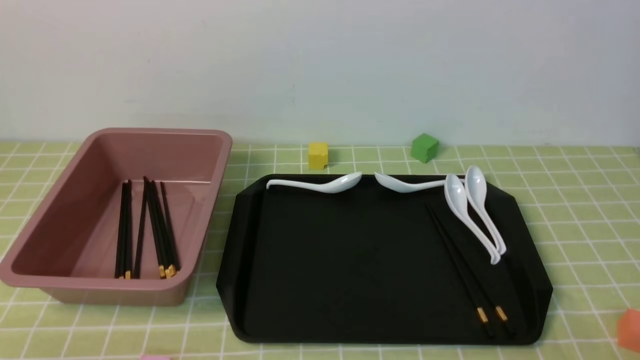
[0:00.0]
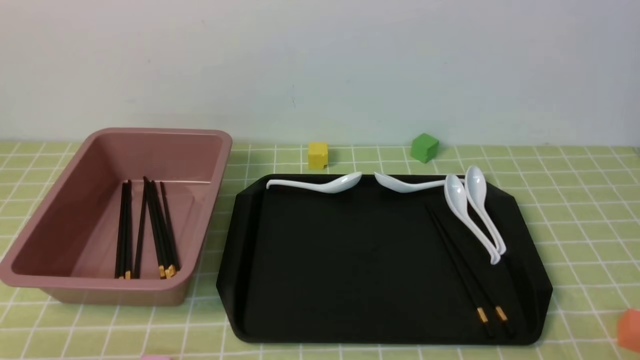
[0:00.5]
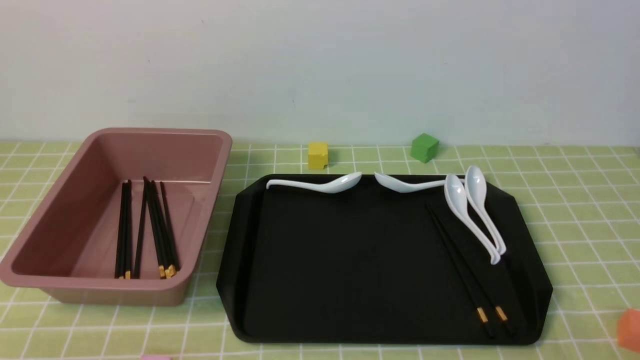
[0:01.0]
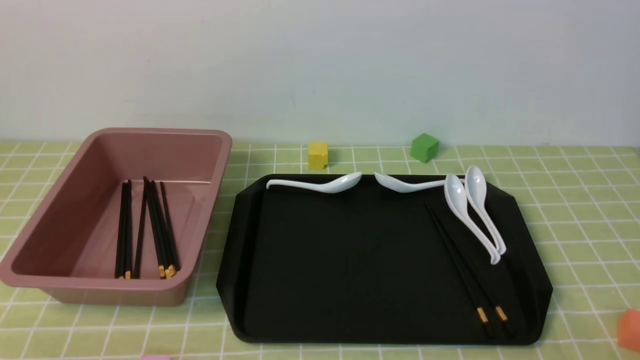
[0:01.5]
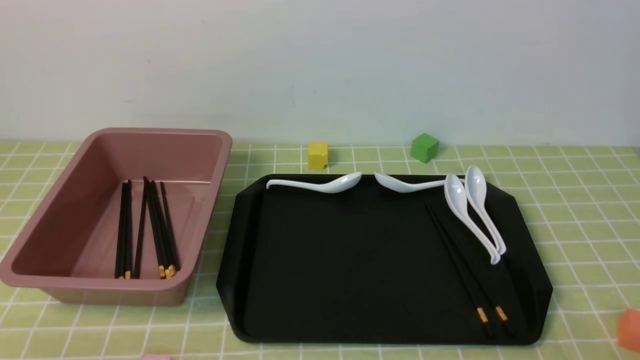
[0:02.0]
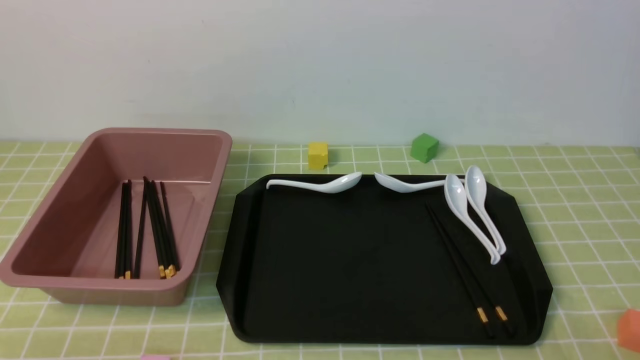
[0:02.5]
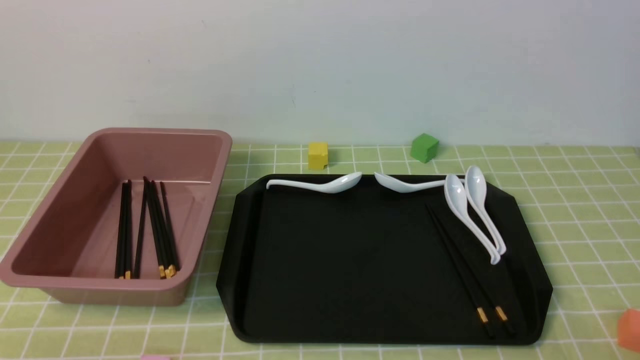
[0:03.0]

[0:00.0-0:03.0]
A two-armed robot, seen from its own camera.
0:00.0 to 0:03.0: Neither gripper changes place.

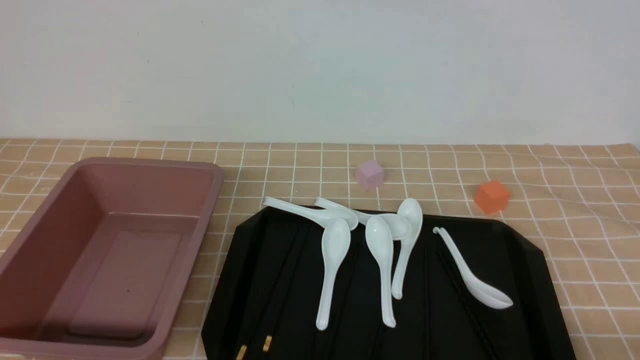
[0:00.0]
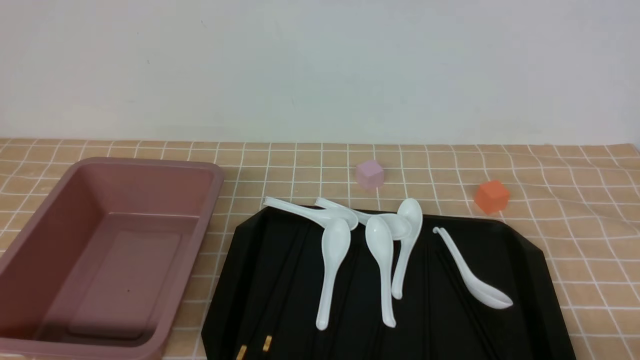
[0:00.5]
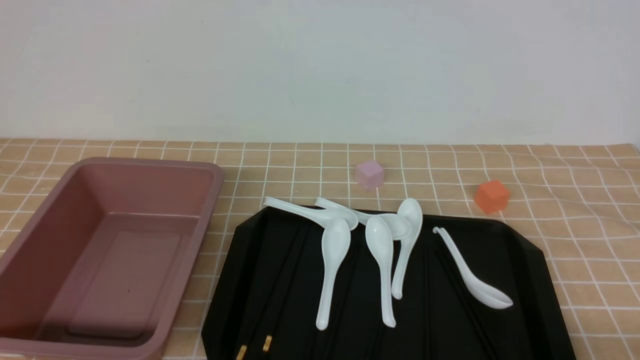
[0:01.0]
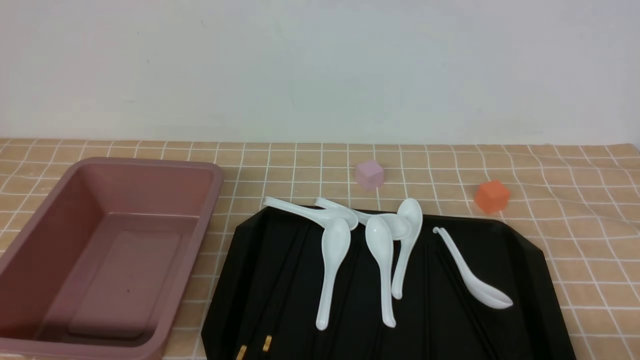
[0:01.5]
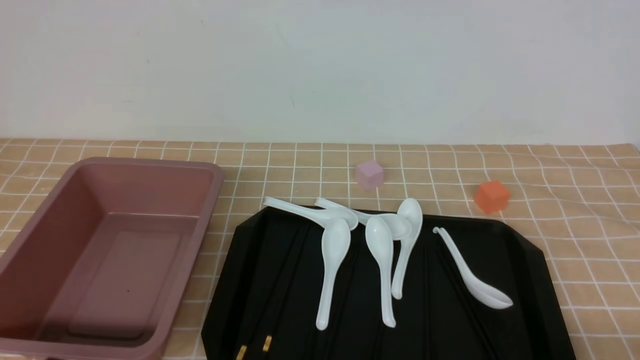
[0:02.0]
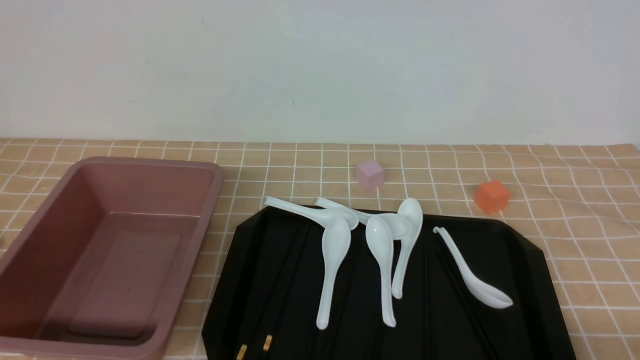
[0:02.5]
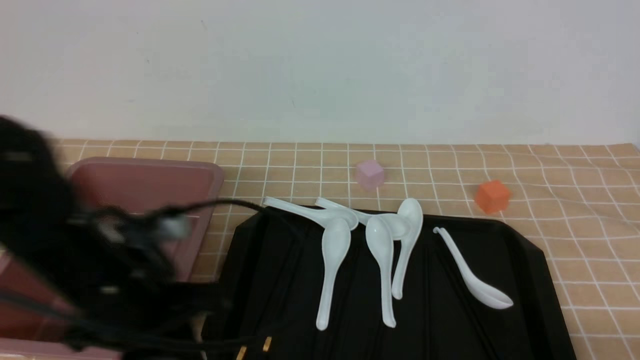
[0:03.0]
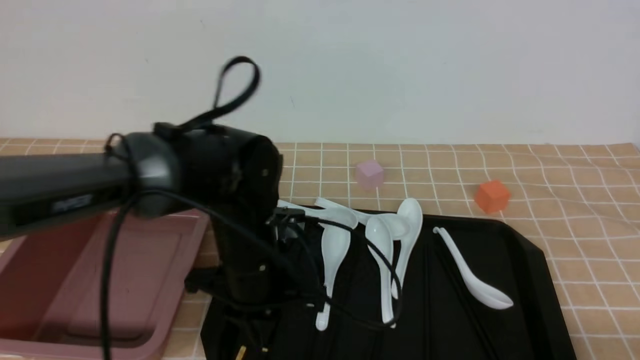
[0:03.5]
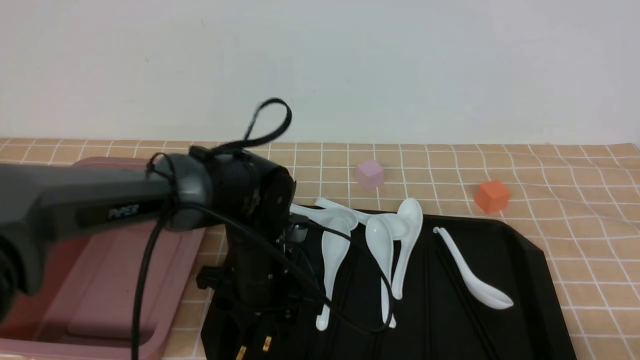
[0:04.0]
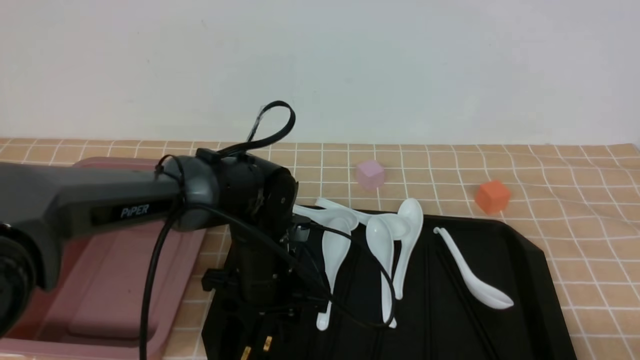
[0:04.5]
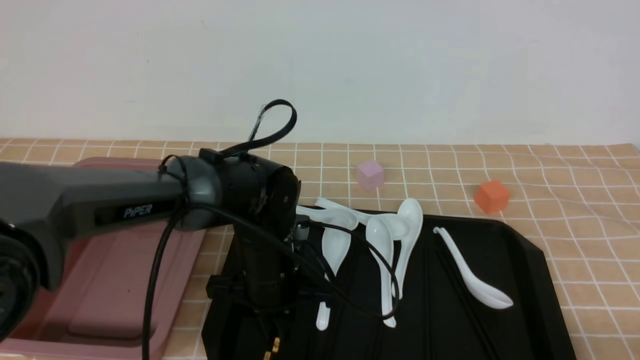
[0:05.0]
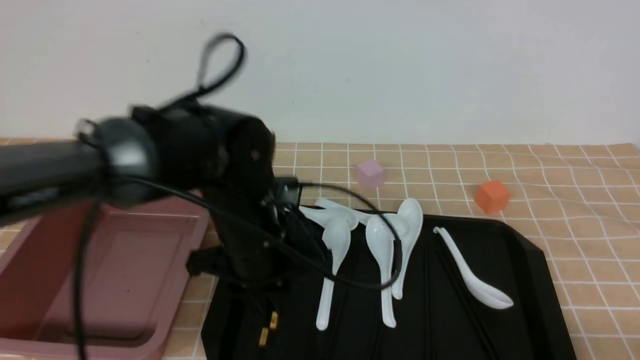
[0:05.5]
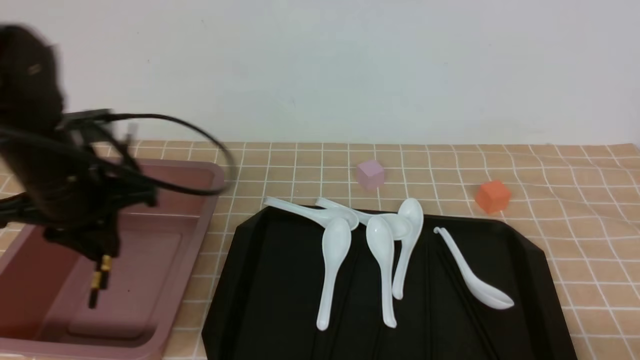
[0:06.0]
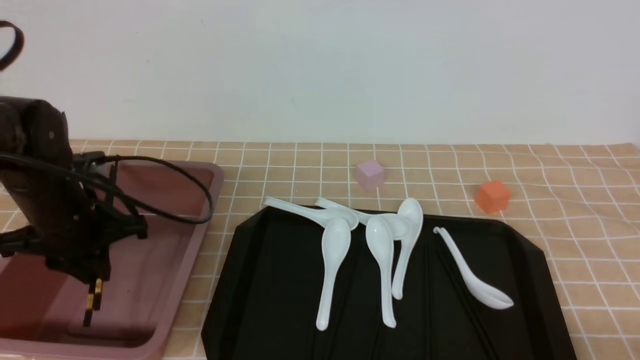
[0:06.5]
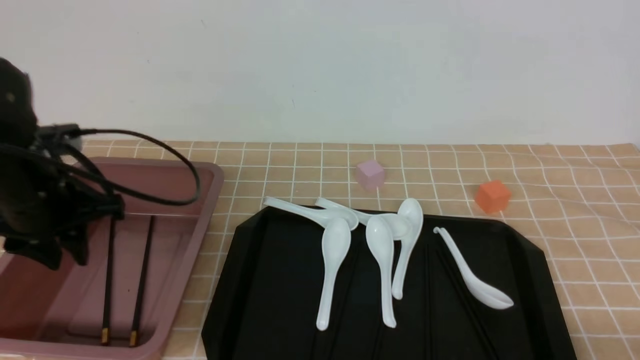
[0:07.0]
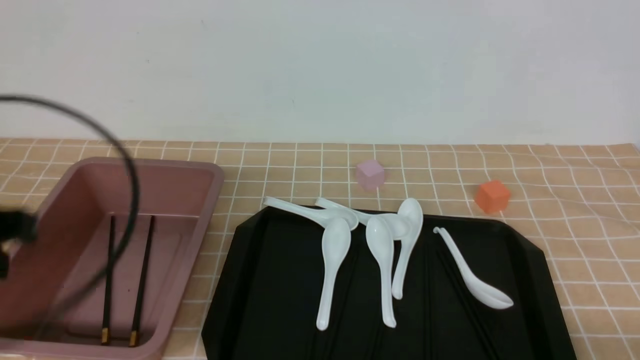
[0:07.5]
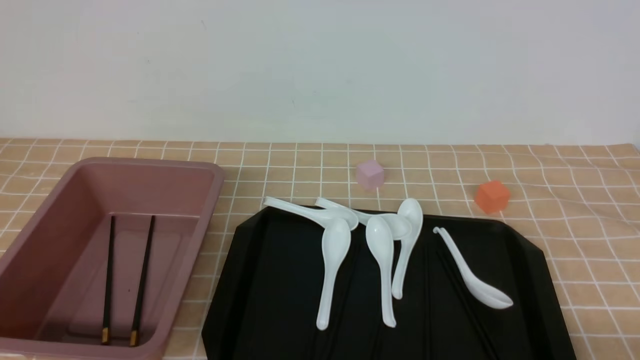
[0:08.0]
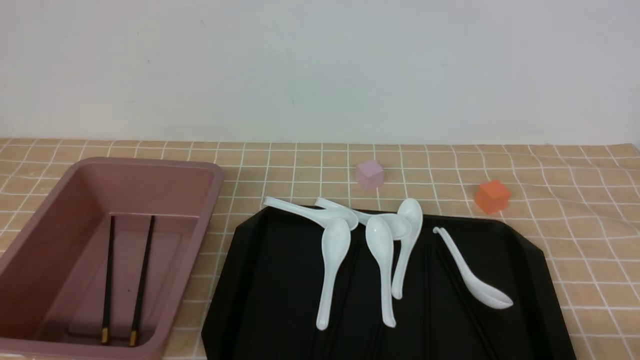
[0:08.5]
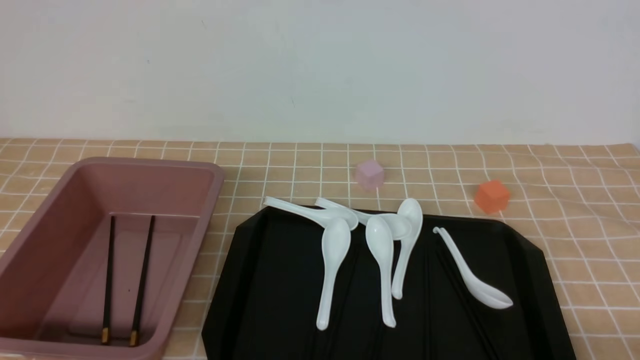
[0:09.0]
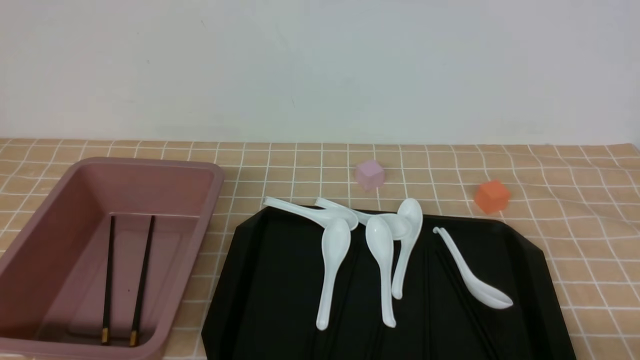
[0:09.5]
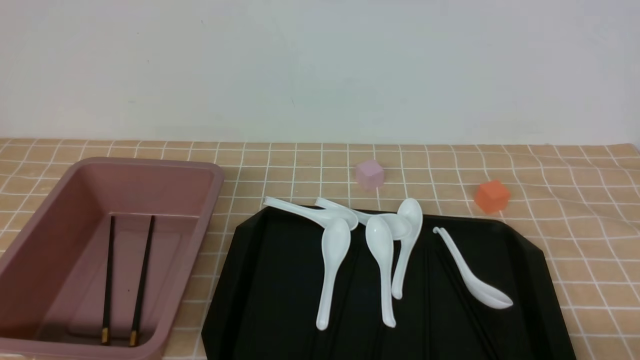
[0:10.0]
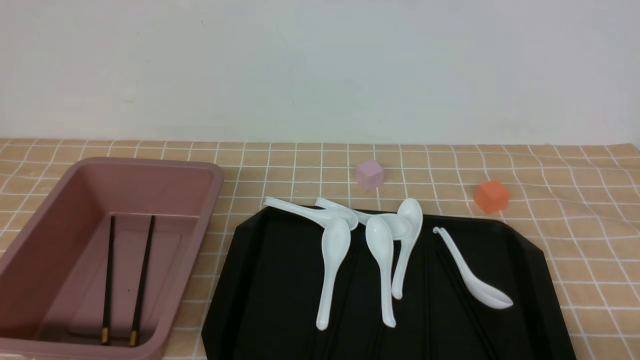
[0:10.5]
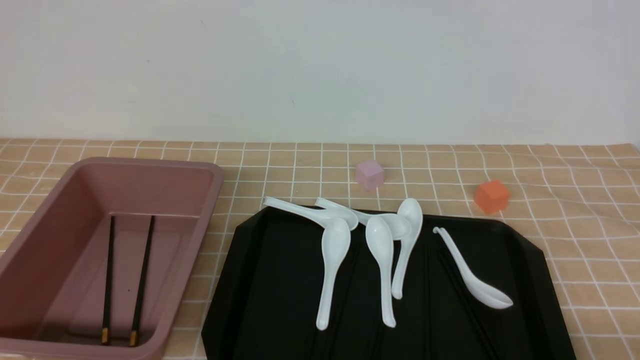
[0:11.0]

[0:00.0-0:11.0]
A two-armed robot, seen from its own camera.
Step, 0:00.0 to 0:05.5: use the left arm to grab a pair of chopsticks.
Step, 0:06.0 to 0:06.5: use the left arm to put the chopsticks into the lunch box.
0:02.0 to 0:03.5: The left gripper travels forward and to the right by some 30 cm.
0:03.5 to 0:05.5: The left gripper opens, then closes once more.
0:05.5 to 0:07.5: The left gripper is displaced to the left, backward and upward by about 25 cm.
0:07.5 to 0:09.0: The left gripper moves downward and backward, approximately 20 cm.
